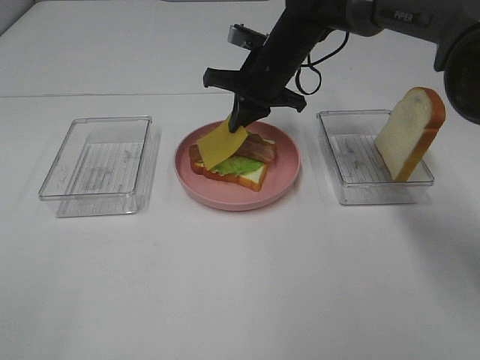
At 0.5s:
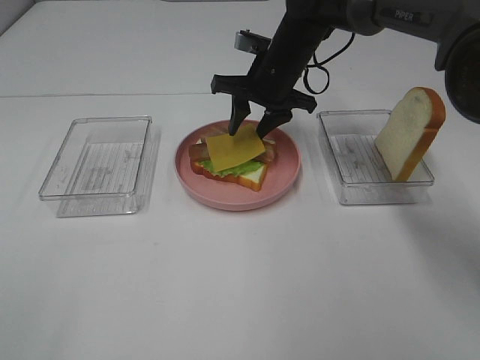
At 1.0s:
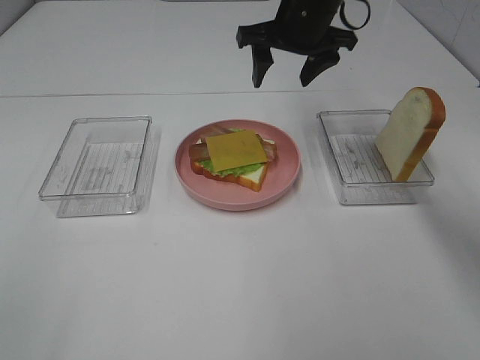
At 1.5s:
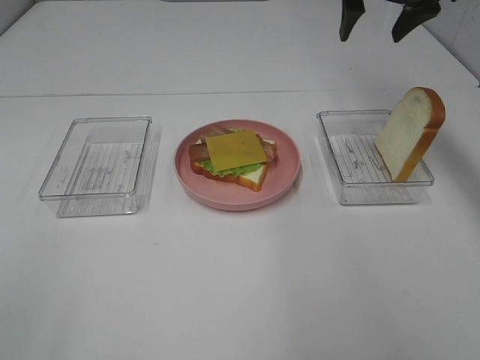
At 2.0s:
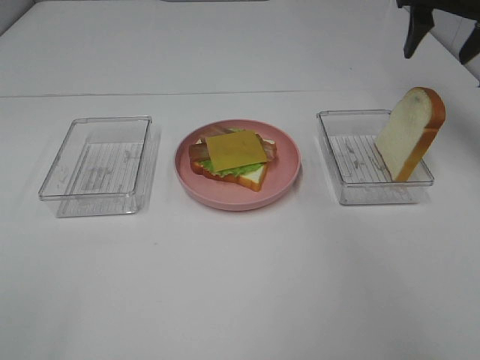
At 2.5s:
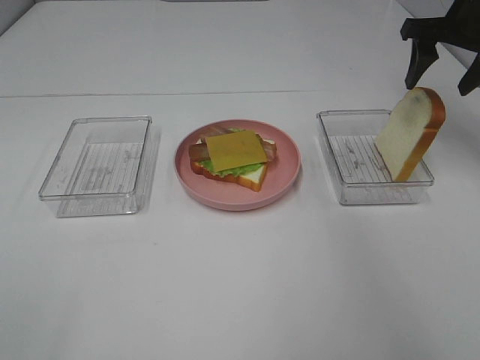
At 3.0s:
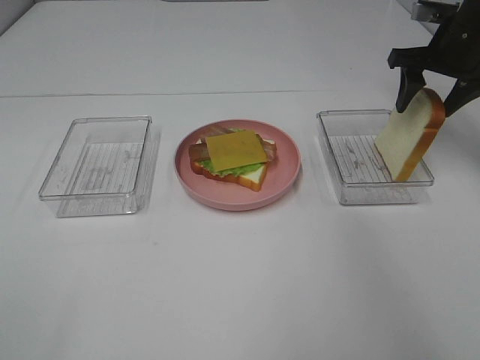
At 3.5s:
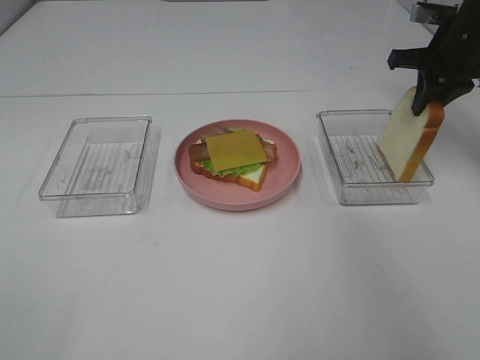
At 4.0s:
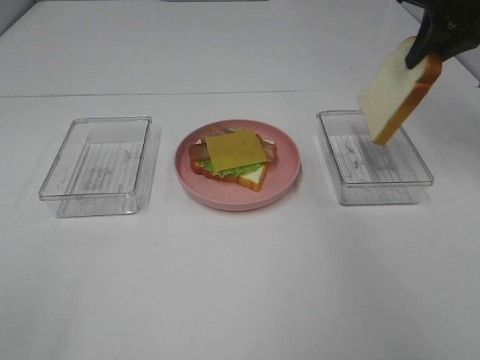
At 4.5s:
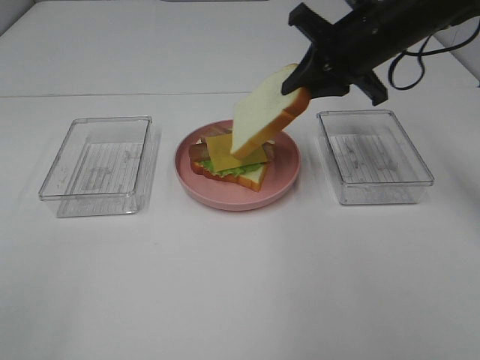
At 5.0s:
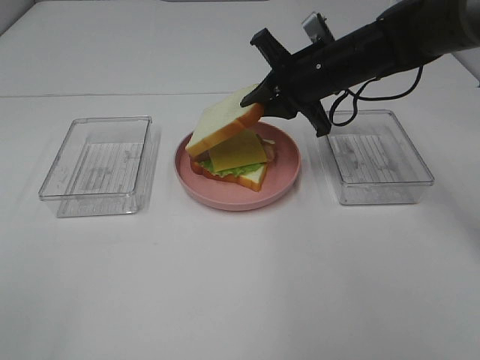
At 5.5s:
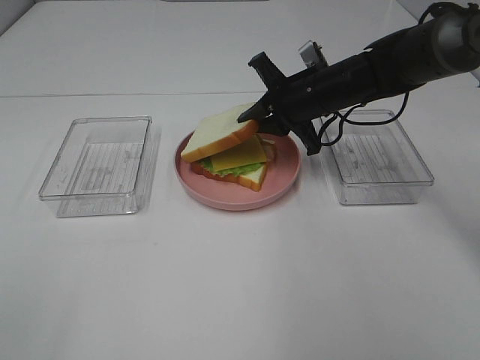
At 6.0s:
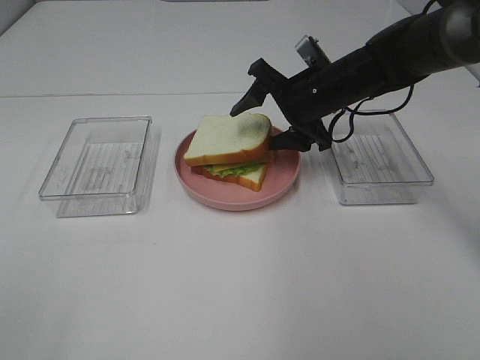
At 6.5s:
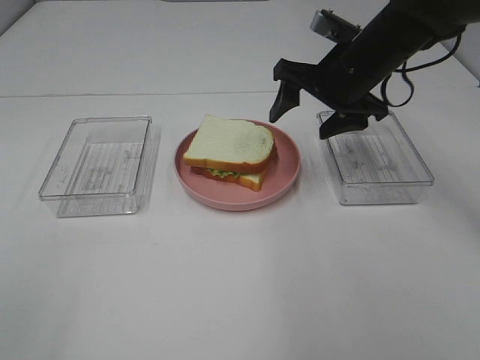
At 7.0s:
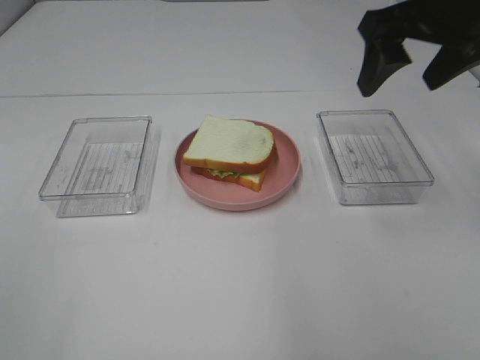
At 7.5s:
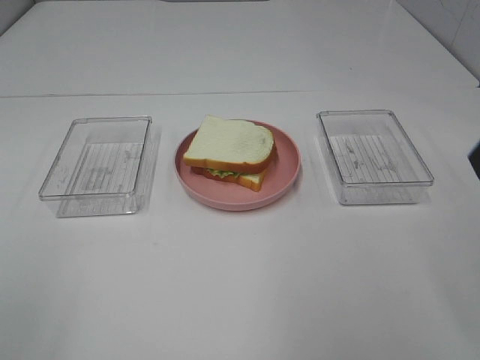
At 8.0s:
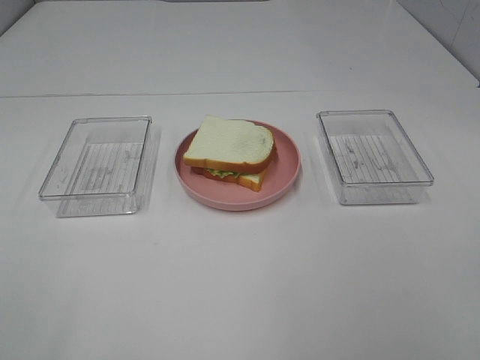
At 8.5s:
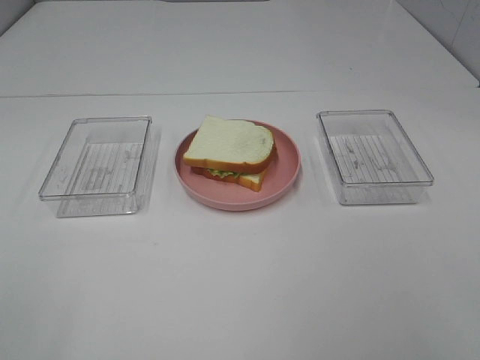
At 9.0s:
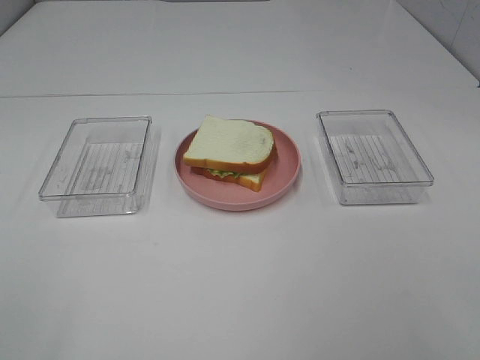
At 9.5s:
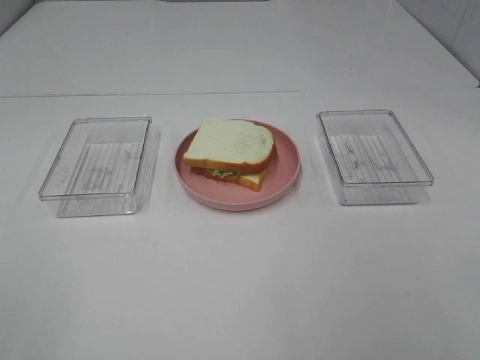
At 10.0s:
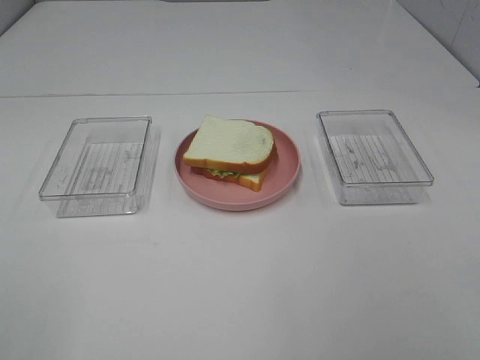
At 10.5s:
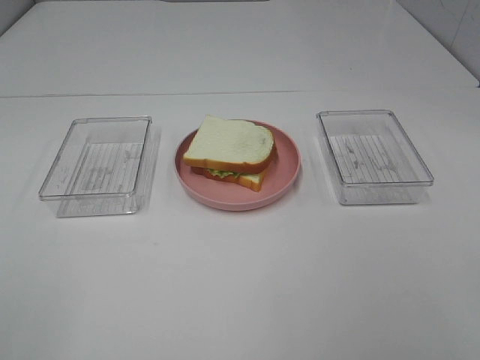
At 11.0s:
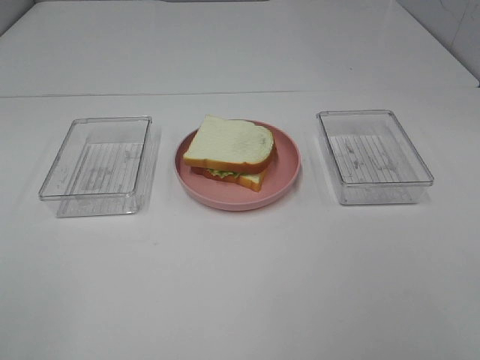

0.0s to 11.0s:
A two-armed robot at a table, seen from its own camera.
Task of the whole recording: Make sandwiches.
Step, 1.5s to 3.0s: Right hand:grab the bread slice.
Step, 3.5s to 7.0s: Right hand:place the bread slice on the cheese slice.
0.0s to 2.0s: The right gripper travels to the right and upward by roughly 25 cm, and opens its fingers.
2.0s to 3.5s: The right gripper travels downward by roughly 5 cm, and closes up.
3.5s to 5.5s: The right gripper travels to the left and downward by about 20 cm.
5.5s to 7.5s: The right gripper is displaced backward, upward and to the right by about 35 cm, and opens its fingers.

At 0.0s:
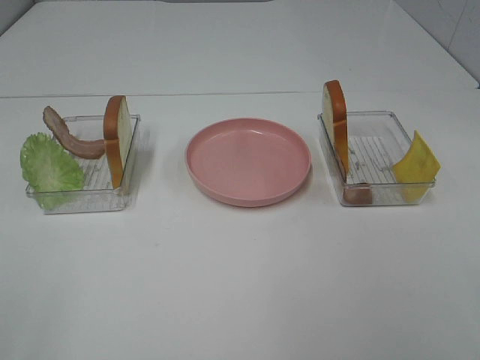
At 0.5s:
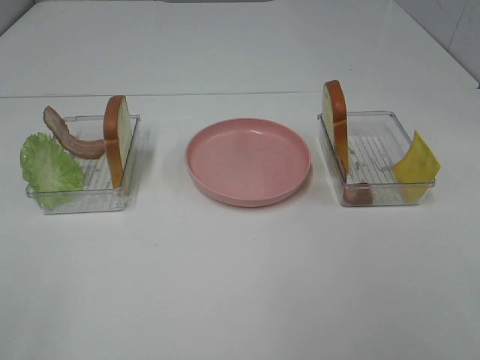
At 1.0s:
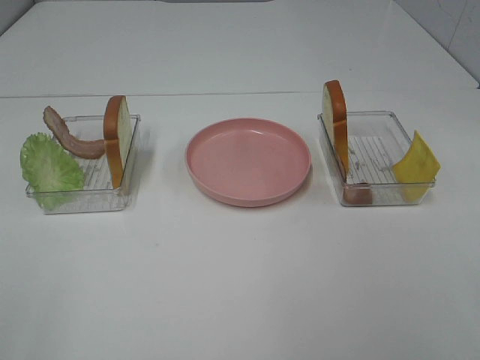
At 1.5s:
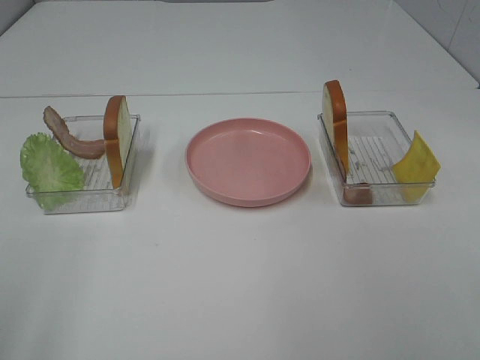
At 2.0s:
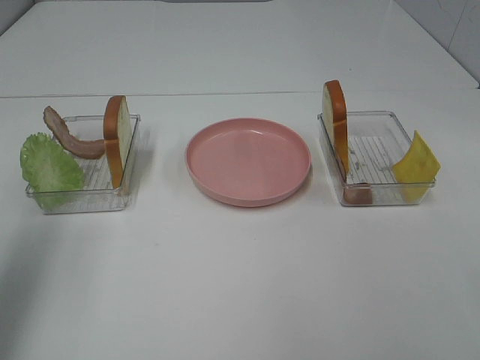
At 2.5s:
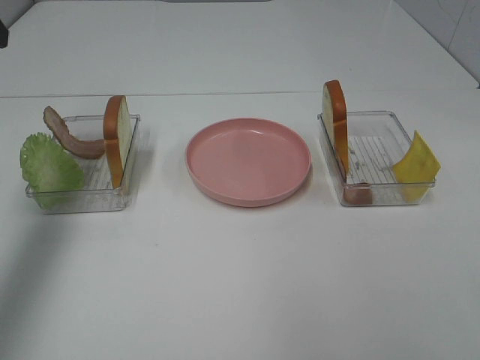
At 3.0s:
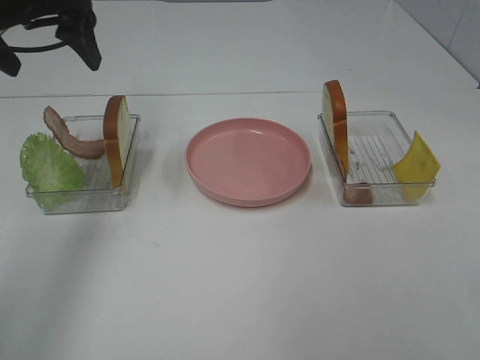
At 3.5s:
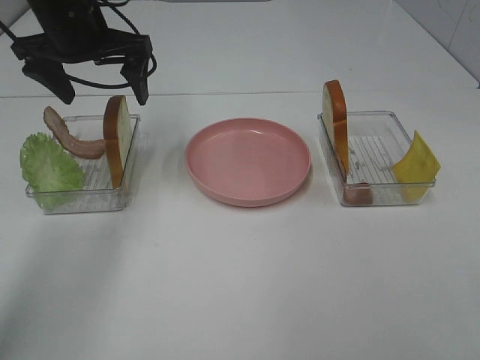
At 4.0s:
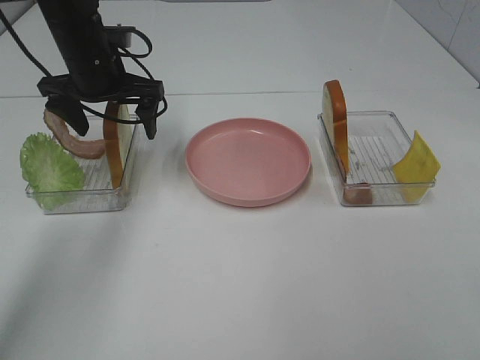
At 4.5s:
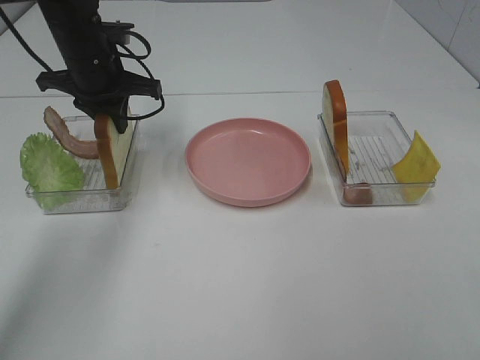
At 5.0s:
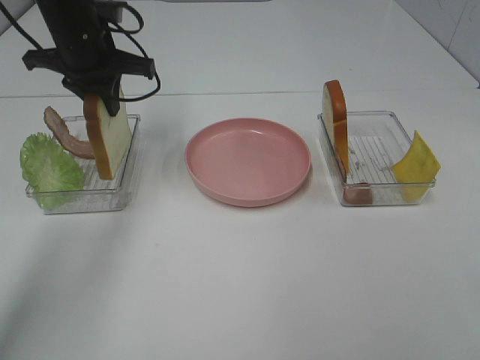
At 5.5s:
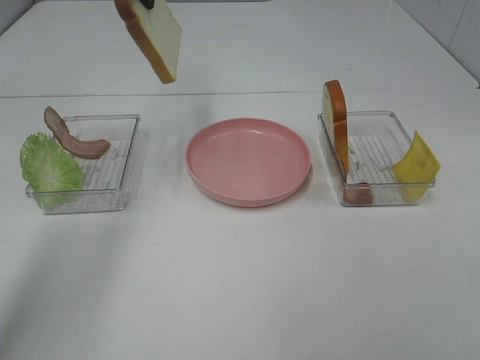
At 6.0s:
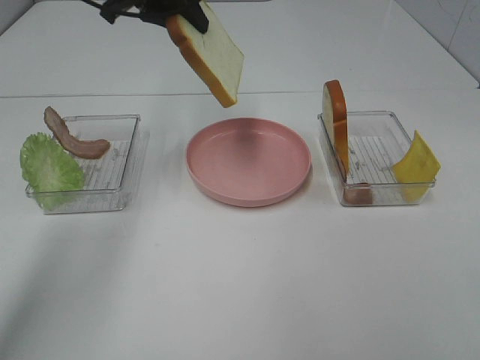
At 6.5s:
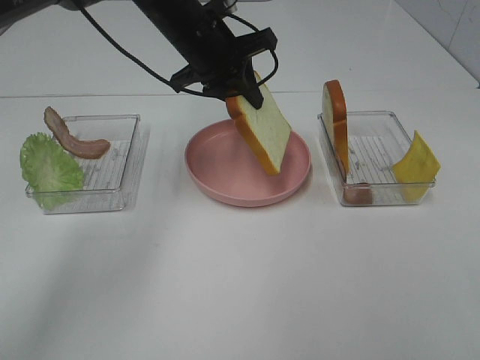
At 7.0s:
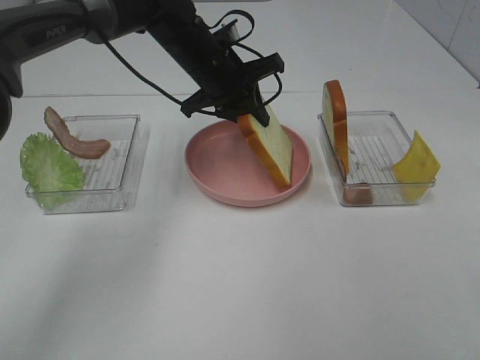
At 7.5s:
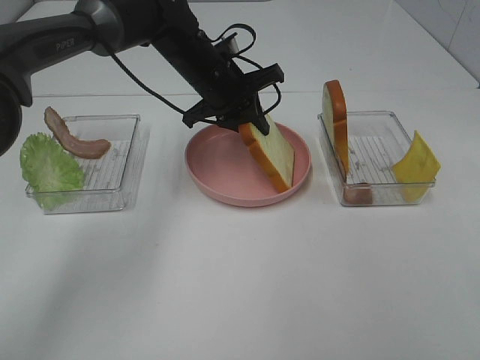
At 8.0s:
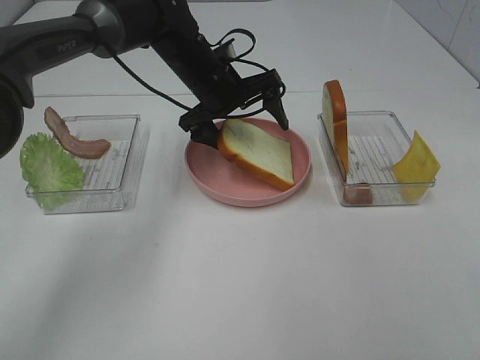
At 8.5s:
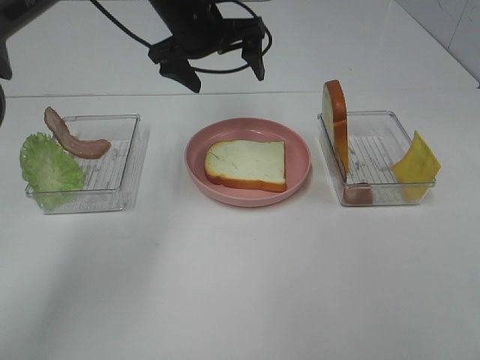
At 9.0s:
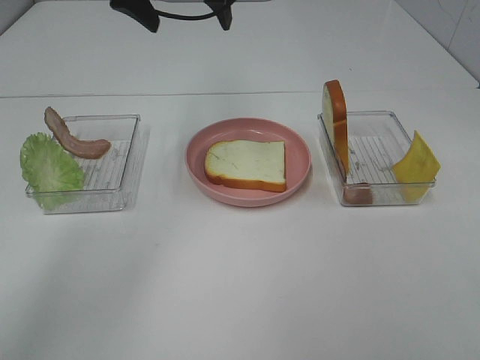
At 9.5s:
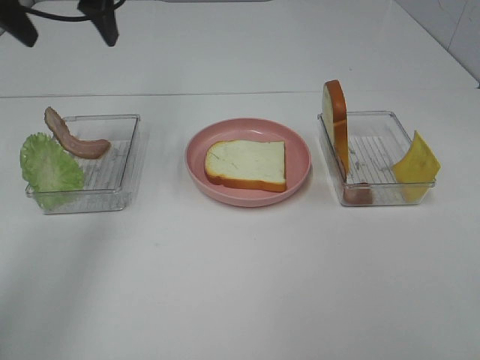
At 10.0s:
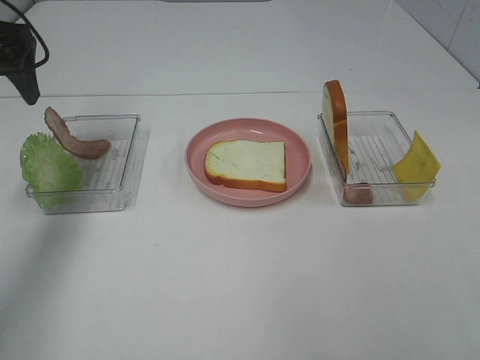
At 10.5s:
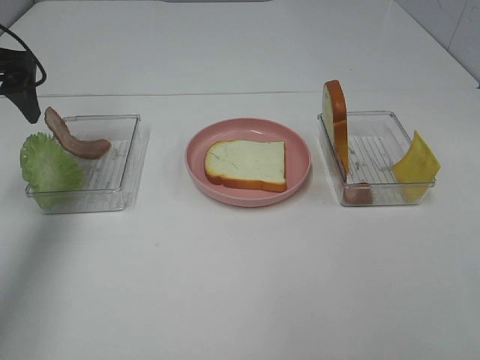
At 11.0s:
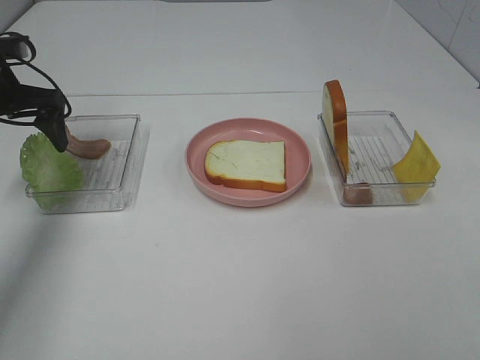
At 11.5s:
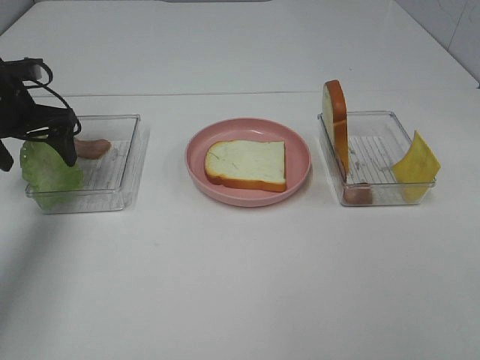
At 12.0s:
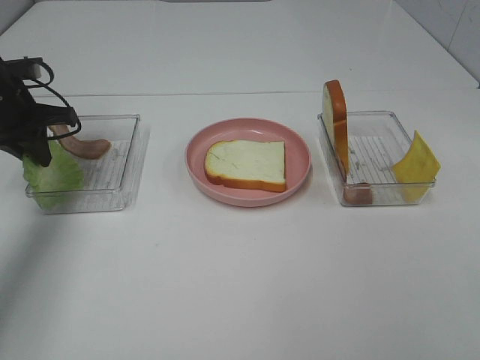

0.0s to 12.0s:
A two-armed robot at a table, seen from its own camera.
Task of the whole recording: Make sandwiches.
Step, 0.0s to 4.5s: Left hand:grab the bread slice.
Step, 5.0s to 8.5s: Left hand:place the bread slice on the plate.
0.0s to 2.0s: The left gripper travels forward by about 20 cm.
2.0s to 4.0s: The left gripper shifts approximately 35 cm forward, downward and to the right.
4.0s to 6.0s: The left gripper heads upward and to the right, covering some 10 cm, and closes its fingers.
6.0s to 8.0s: The left gripper travels downward and to the right by roughly 15 cm, and opens its fingers.
8.0s to 10.0s: The left gripper is displaced to the left and upward by about 30 cm.
10.0s to 12.0s: The left gripper moves downward, approximately 15 cm, and closes its fingers.

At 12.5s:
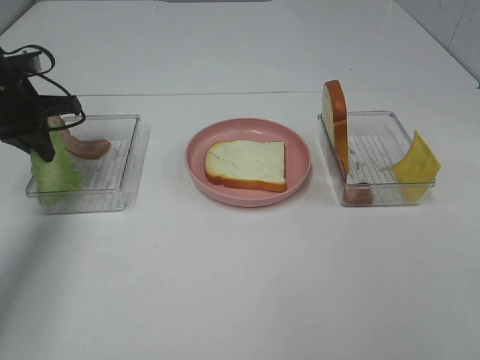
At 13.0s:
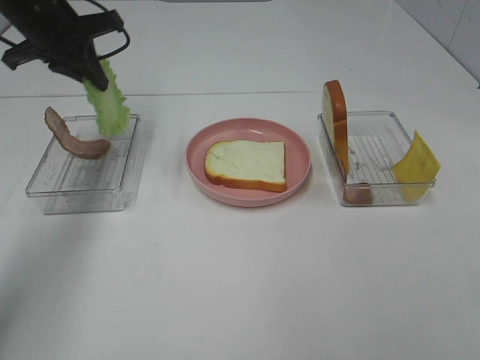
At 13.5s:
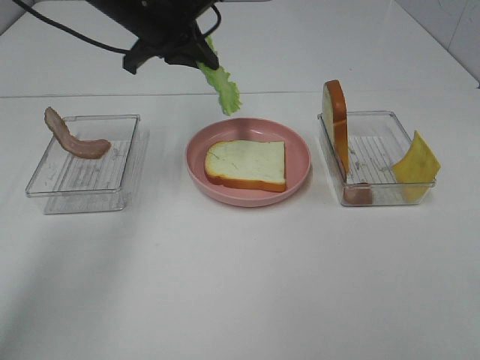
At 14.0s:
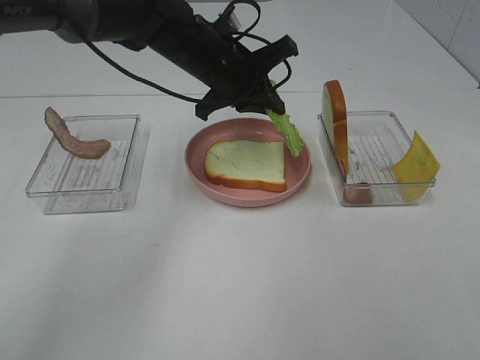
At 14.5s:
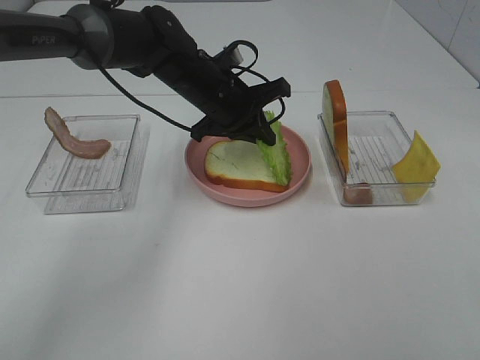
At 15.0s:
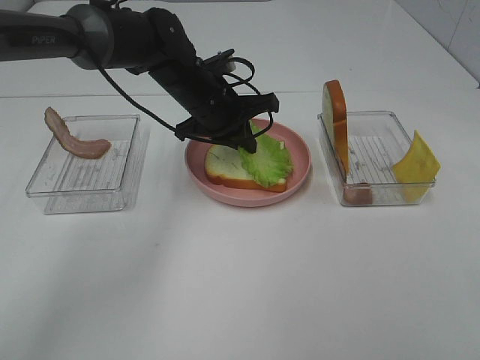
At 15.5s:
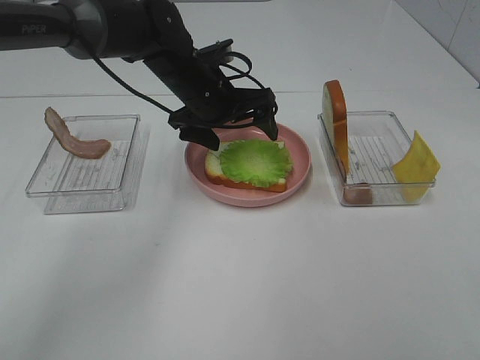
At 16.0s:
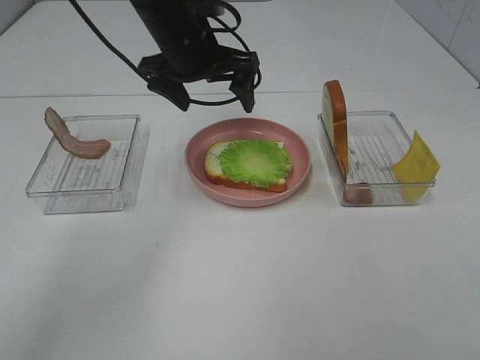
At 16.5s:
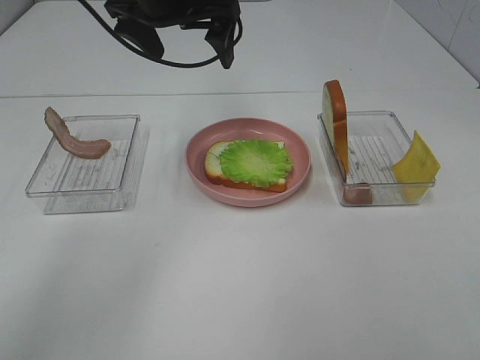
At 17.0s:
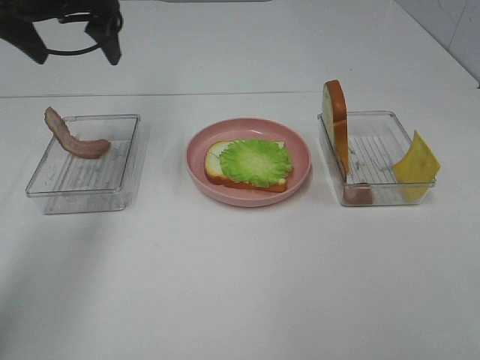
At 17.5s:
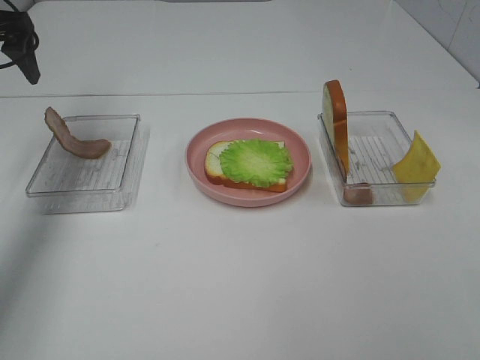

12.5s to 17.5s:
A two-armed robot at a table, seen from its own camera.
Task of the whole recording: Make sandwiches.
Step, 12.5s to 15.5s: Left hand:place the lettuce slice on the bread slice.
12.5s to 15.0s: The left gripper travels to the right by roughly 25 cm.
15.0s to 17.5s: The left gripper goes some 30 cm to the left and upward, and opens.
